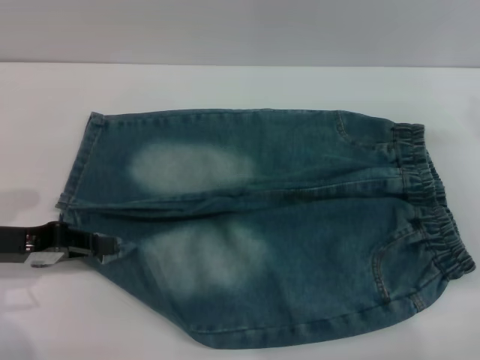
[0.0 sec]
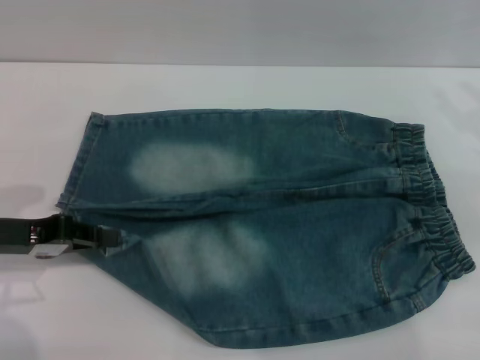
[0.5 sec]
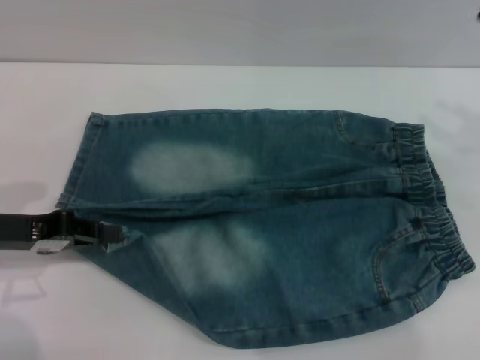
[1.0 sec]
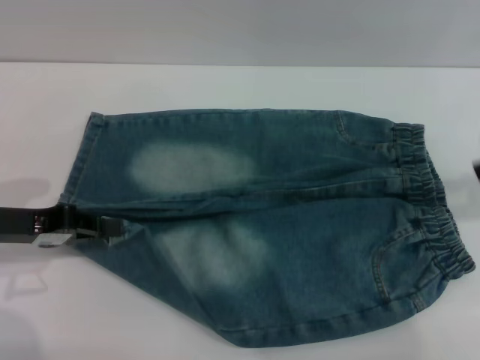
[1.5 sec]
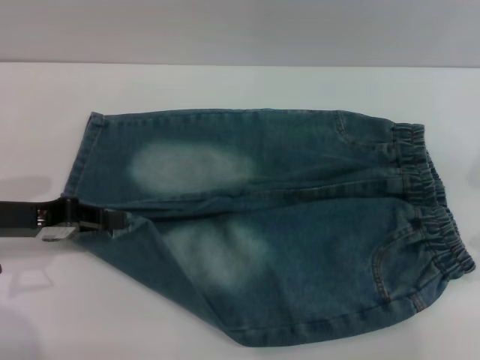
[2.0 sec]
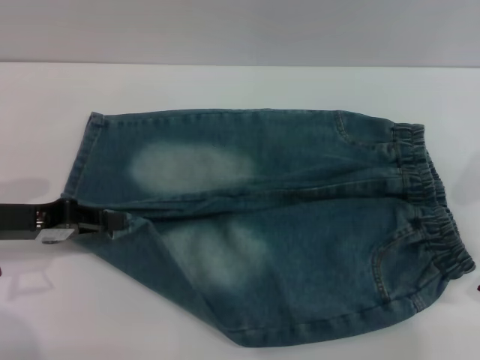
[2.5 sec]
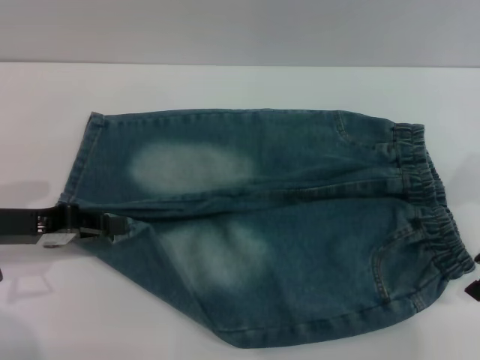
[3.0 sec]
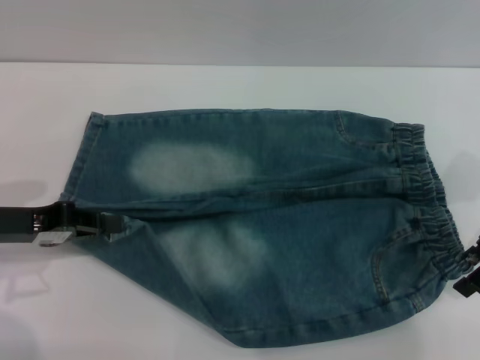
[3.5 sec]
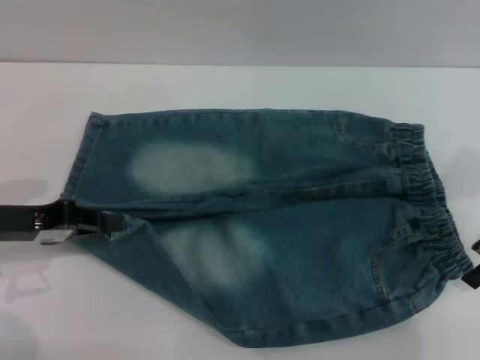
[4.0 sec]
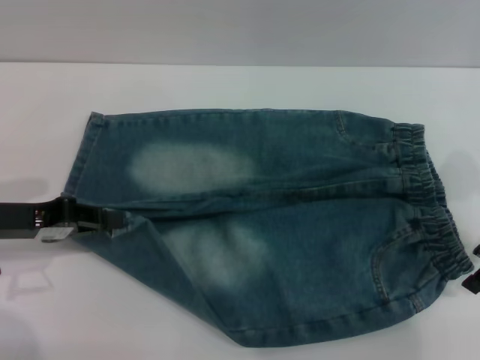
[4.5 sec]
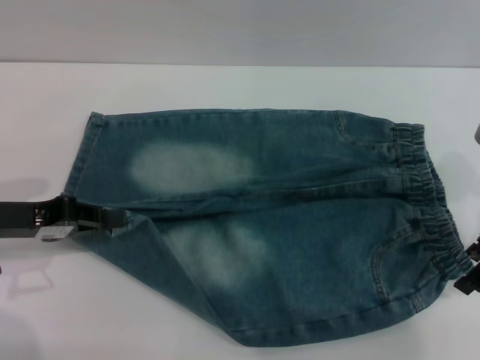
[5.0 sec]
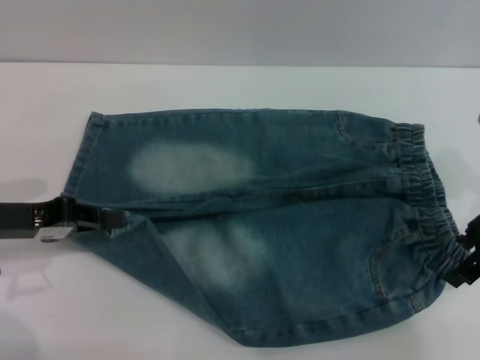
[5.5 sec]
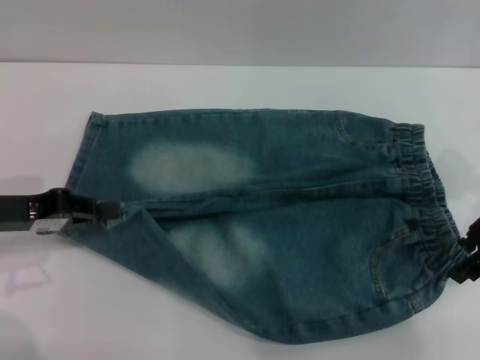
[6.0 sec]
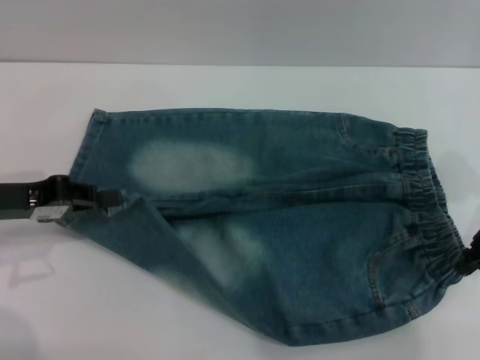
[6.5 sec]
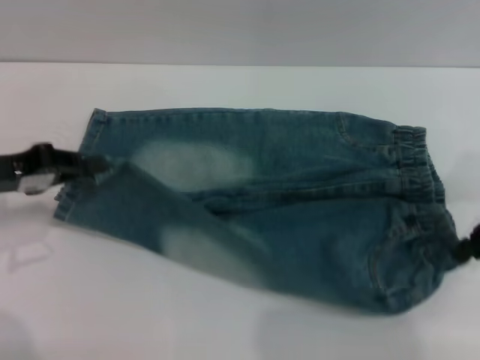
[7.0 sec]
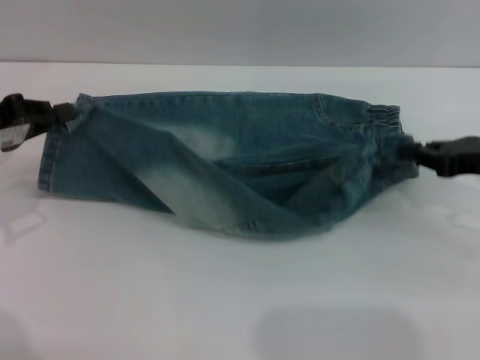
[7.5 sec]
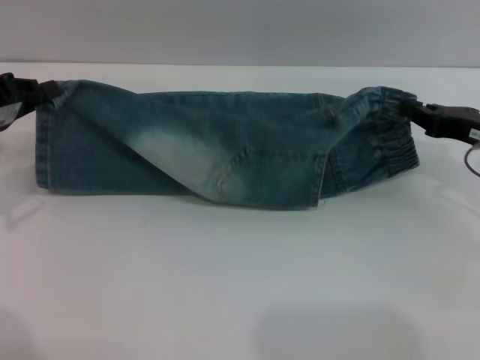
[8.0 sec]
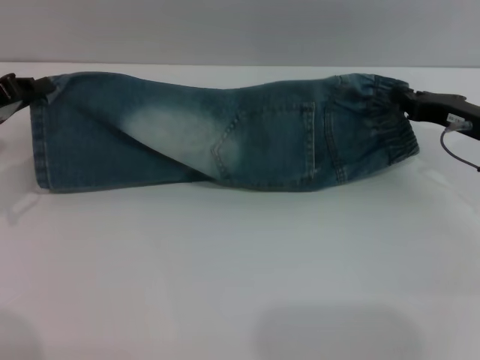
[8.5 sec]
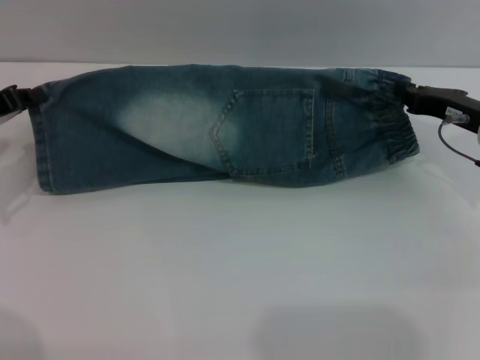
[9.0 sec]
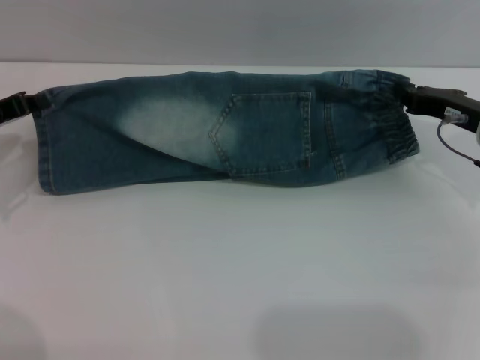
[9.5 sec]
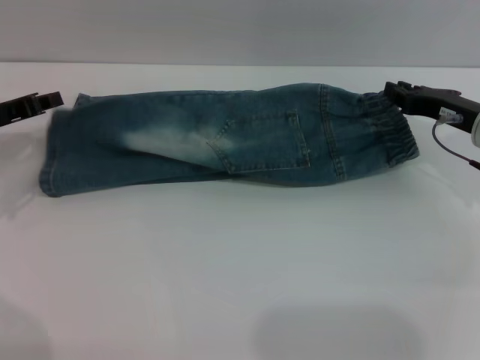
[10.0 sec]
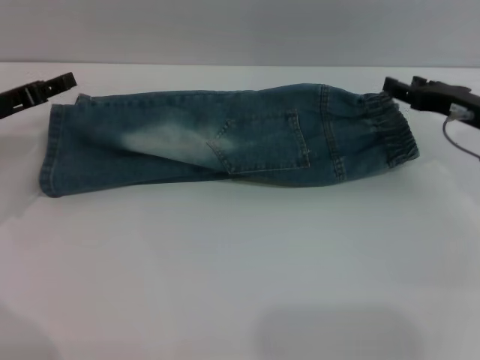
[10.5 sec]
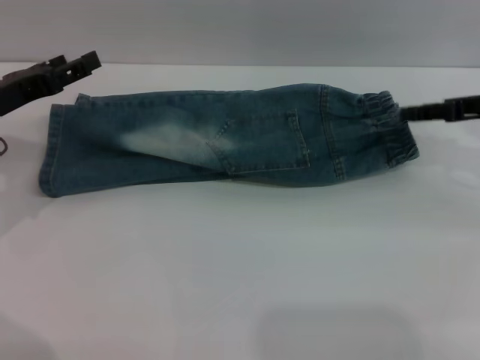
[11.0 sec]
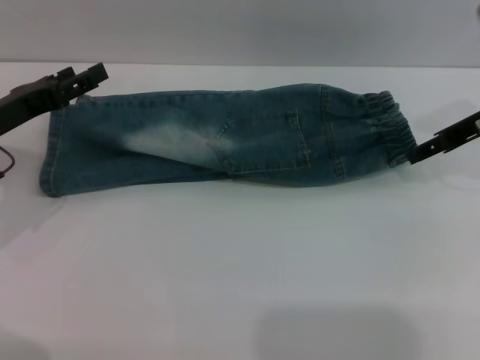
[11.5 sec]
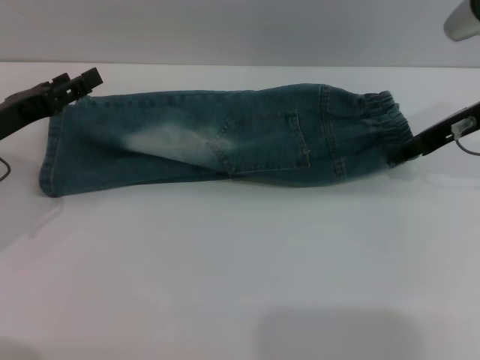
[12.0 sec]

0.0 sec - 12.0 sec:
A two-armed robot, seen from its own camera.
Step, 0.0 sec - 10.5 sec: Fold the bottom of the pants upward with both grippers.
0.0 sec - 2.0 sec: The right gripper heads upward, covering about 10 cm.
4.0 sec - 6.0 sec: The grippers move only a little.
6.0 sec - 8.0 sec: The left gripper shifts roughly 5 cm forward. Meanwhile the right gripper goes approximately 5 cm downward, and closes up.
10.0 sec - 12.0 sec: The left gripper opens its fingers. The right gripper is displaced upward by roughly 10 cm, and opens.

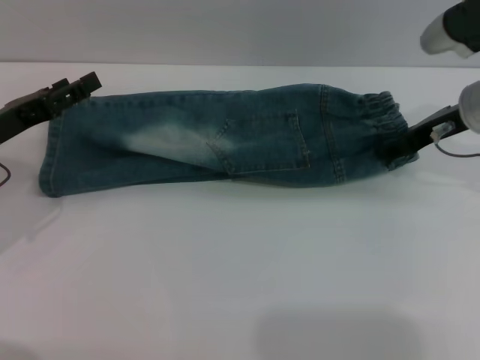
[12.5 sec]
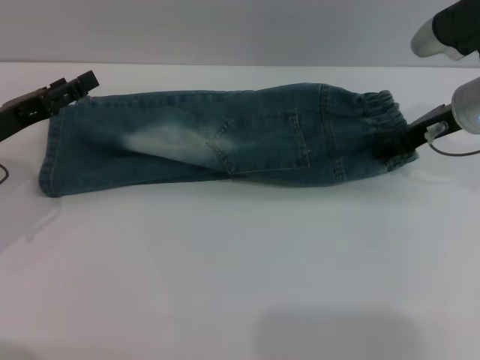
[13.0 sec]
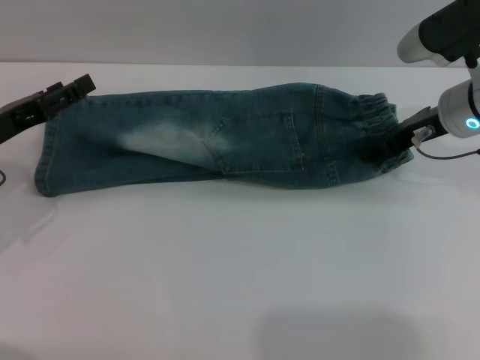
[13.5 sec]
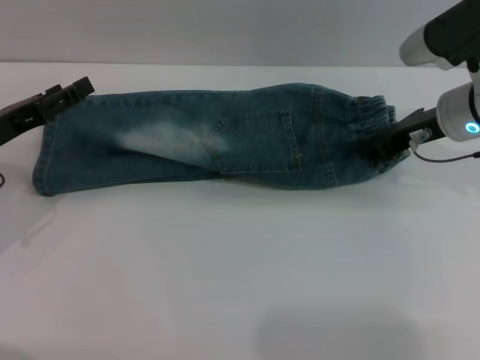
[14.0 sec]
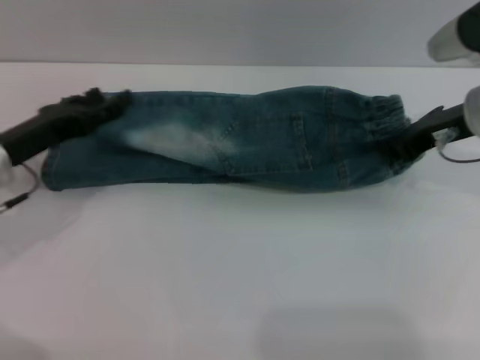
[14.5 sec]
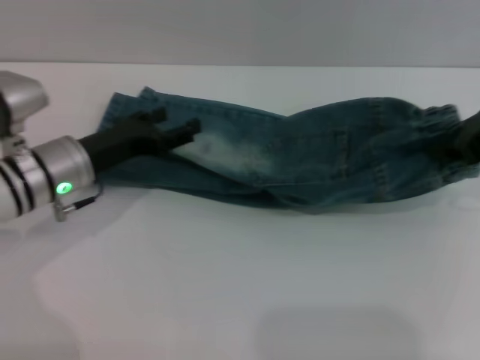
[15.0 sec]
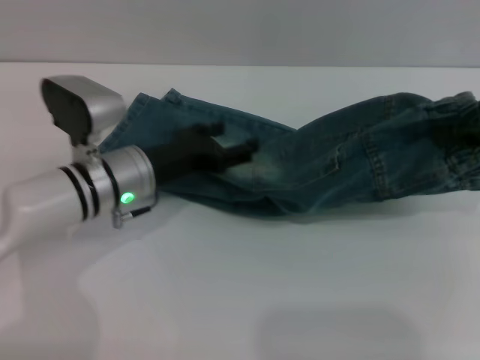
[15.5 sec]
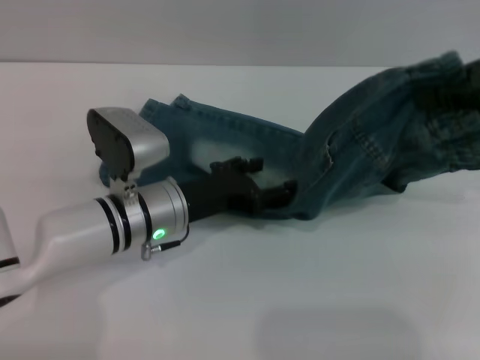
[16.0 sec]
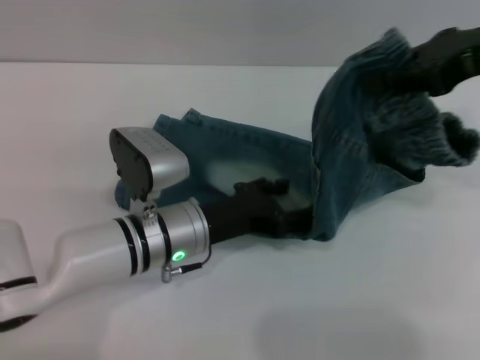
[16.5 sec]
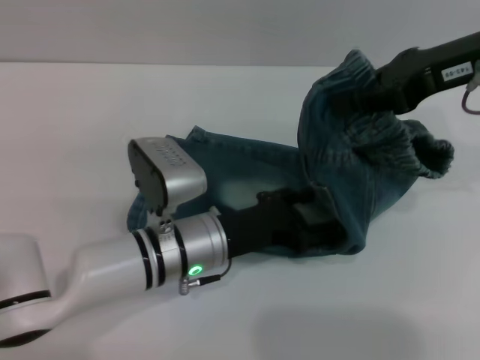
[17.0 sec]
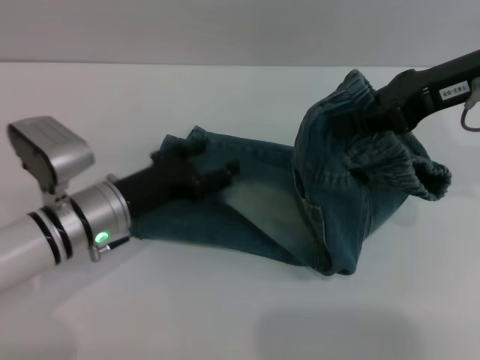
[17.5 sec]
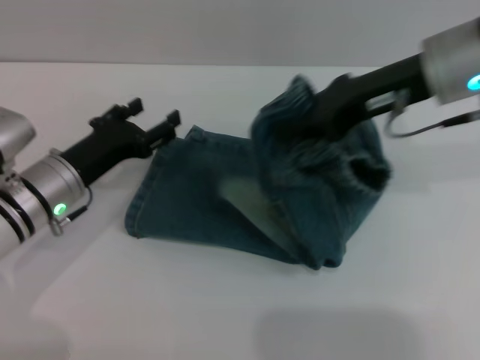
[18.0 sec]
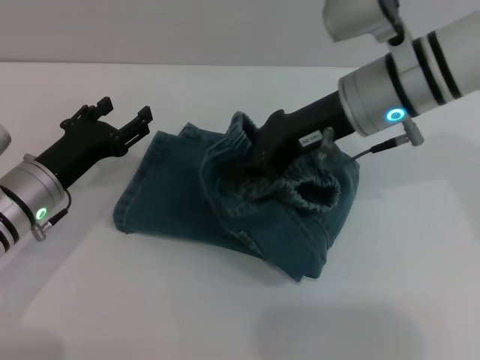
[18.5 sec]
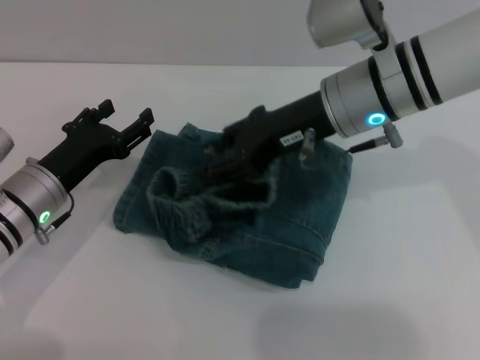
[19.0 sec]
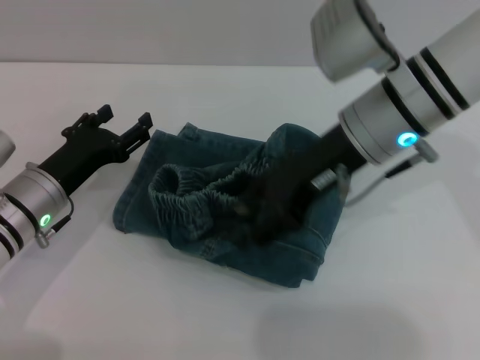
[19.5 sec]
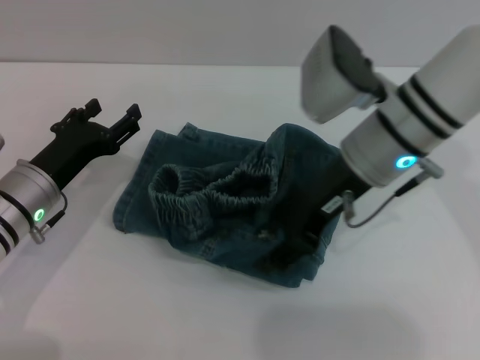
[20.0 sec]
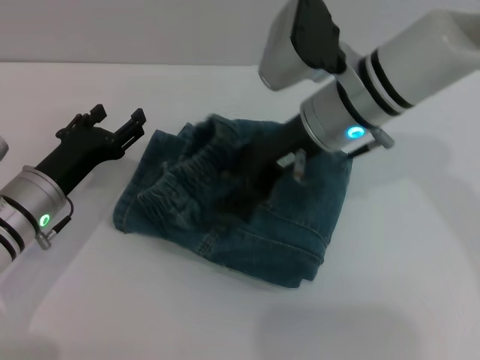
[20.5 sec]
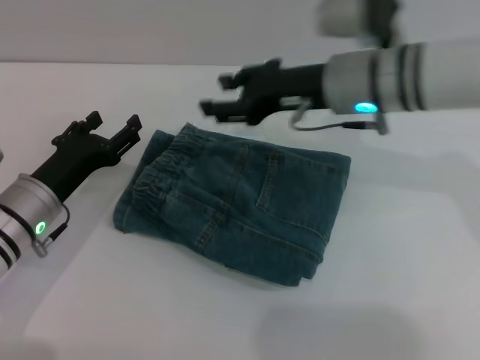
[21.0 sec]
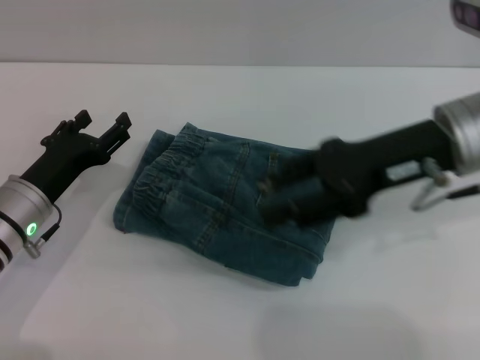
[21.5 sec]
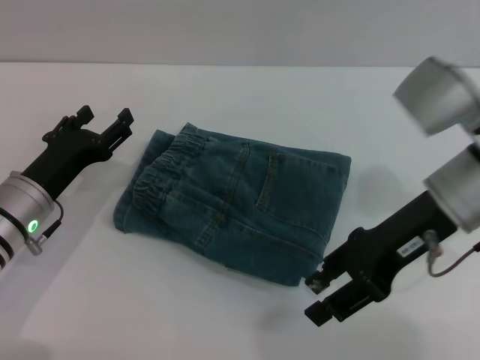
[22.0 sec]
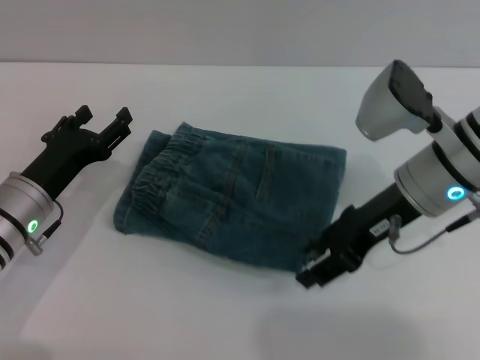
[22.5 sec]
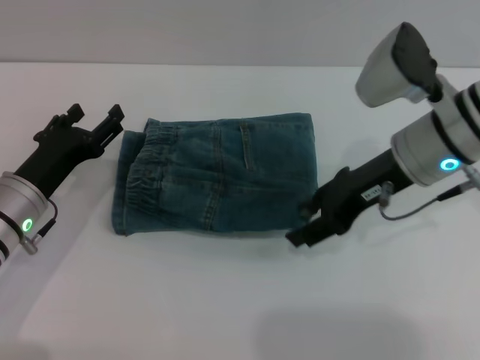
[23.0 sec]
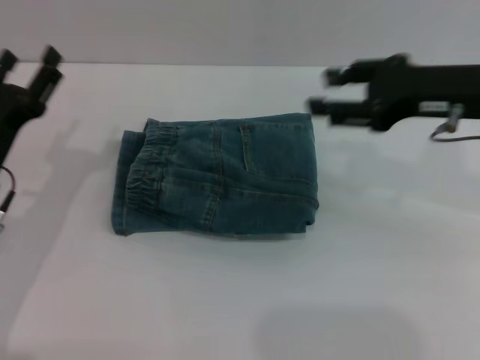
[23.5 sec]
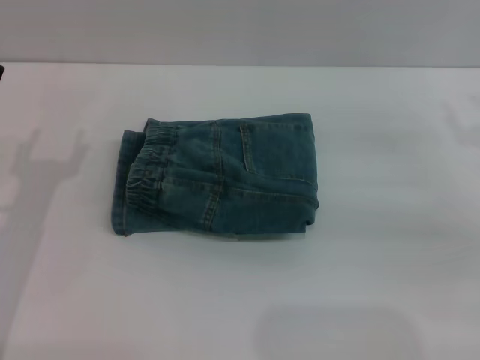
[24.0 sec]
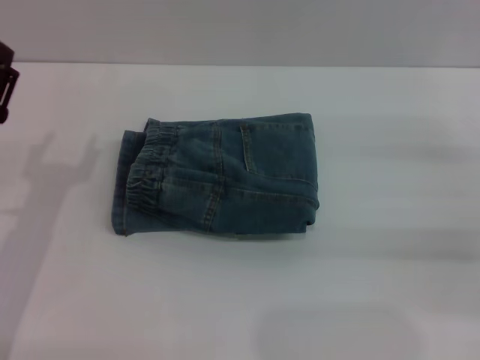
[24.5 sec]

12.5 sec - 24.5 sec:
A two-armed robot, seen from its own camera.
Step, 12.5 sec - 20.5 sec: Fold the pants from right to left with the right gripper.
Step, 21.0 sec - 23.0 sec: Place the folded trousers onto the center area with the right grippers.
12.5 sec - 14.5 sec: The right gripper closes up.
14.5 sec - 16.5 sec: The right gripper heads upward, covering roughly 10 cm; the left gripper travels to the right by about 20 cm.
16.5 sec - 18.5 sec: The right gripper goes some 15 cm to the left and downward, while the left gripper is displaced to the left by roughly 15 cm.
18.5 sec - 20.5 sec: The right gripper opens its fingers.
20.5 sec - 22.5 sec: The right gripper travels to the right by approximately 10 cm.
22.5 sec - 24.5 sec: The left gripper moves approximately 5 cm. Meanwhile the right gripper shifts some 20 cm to the right.
